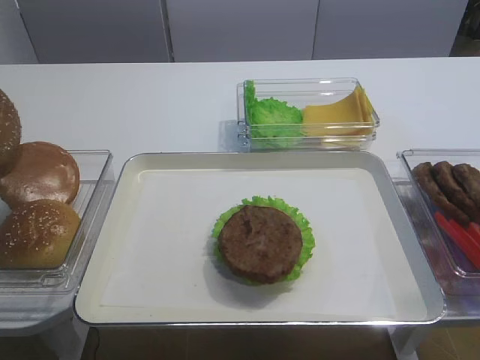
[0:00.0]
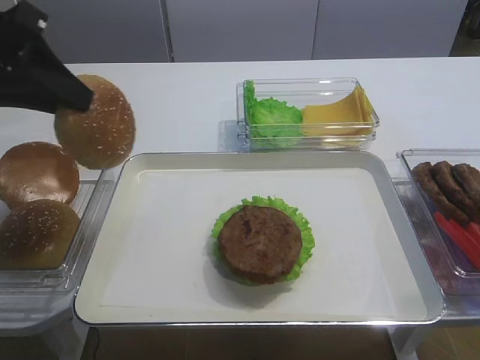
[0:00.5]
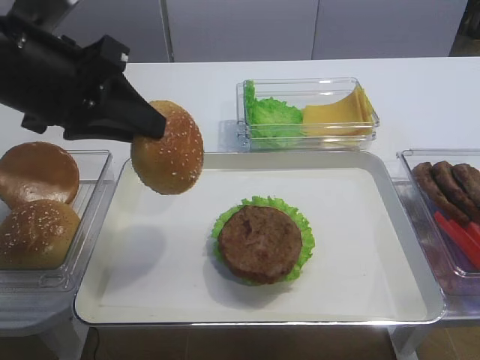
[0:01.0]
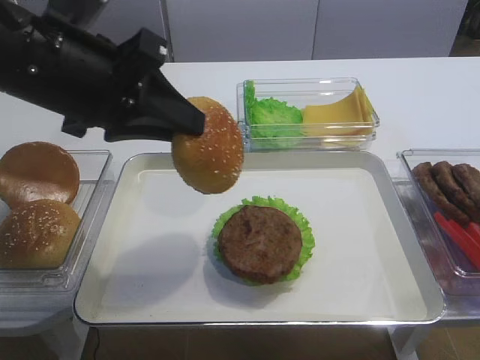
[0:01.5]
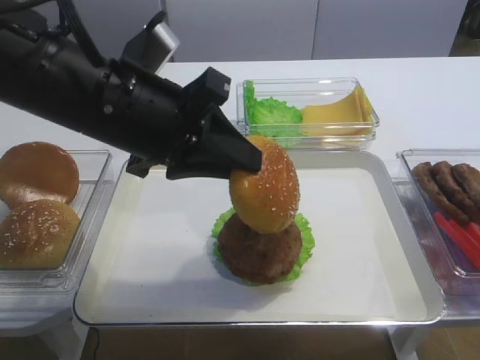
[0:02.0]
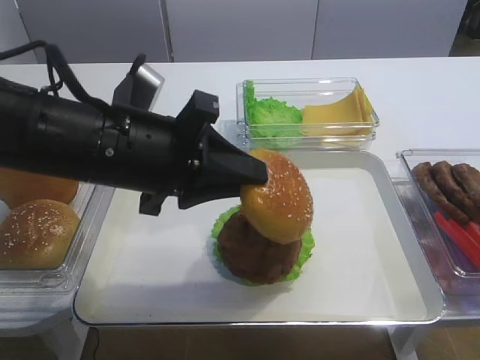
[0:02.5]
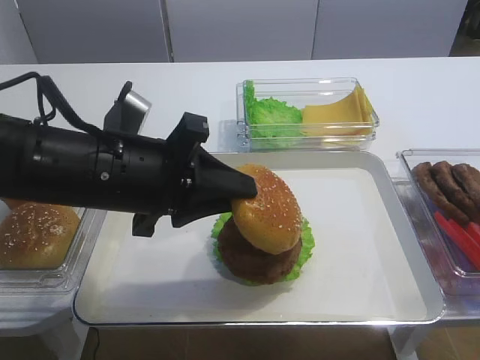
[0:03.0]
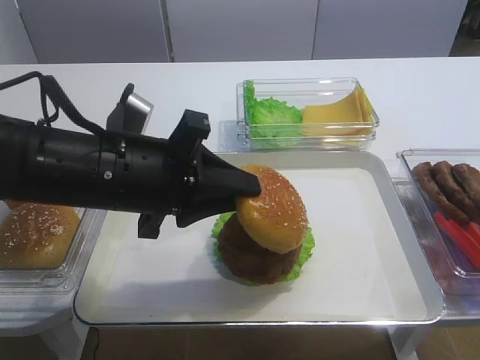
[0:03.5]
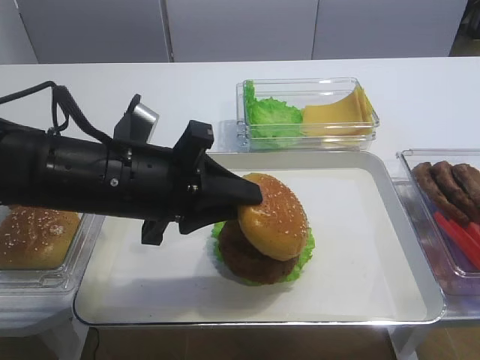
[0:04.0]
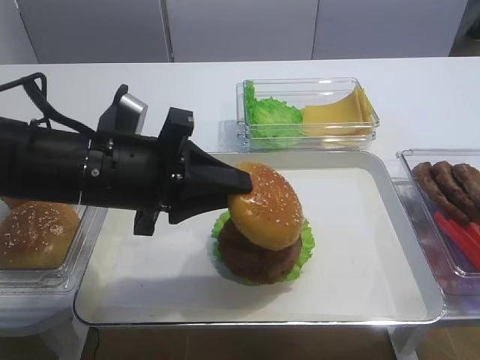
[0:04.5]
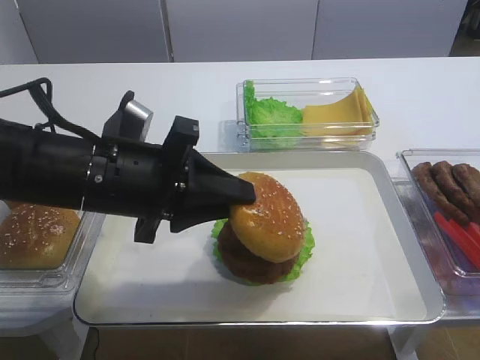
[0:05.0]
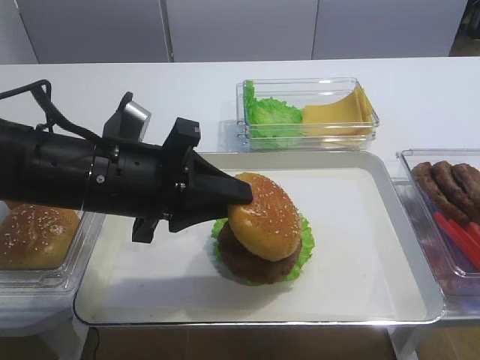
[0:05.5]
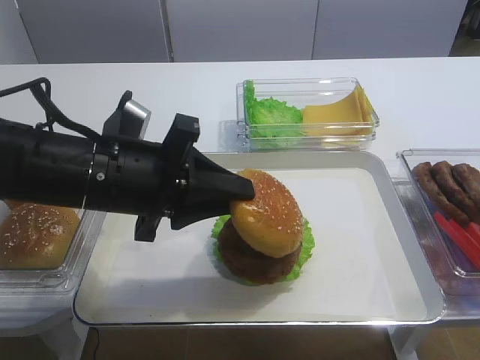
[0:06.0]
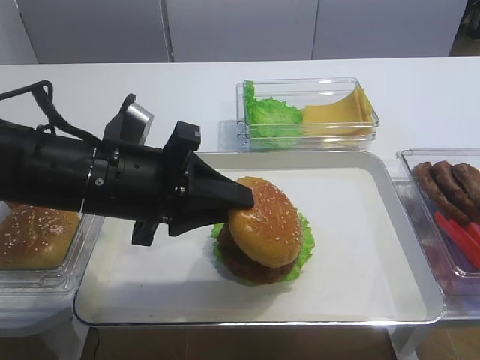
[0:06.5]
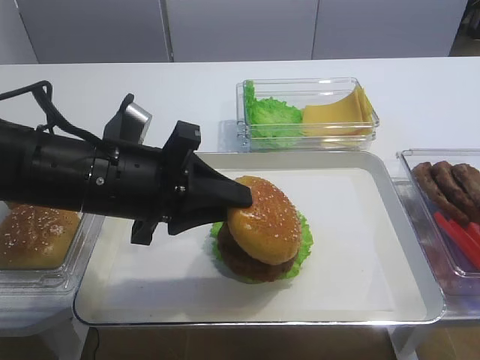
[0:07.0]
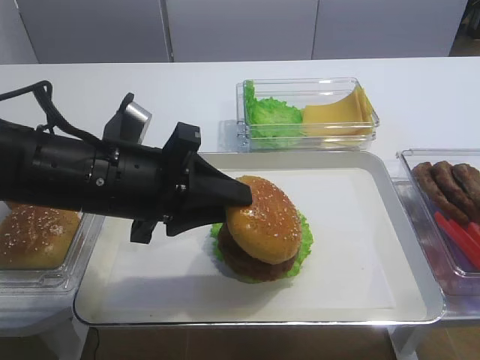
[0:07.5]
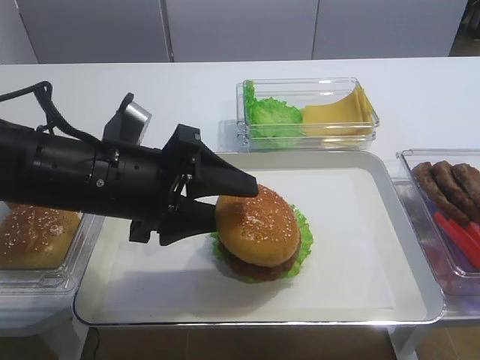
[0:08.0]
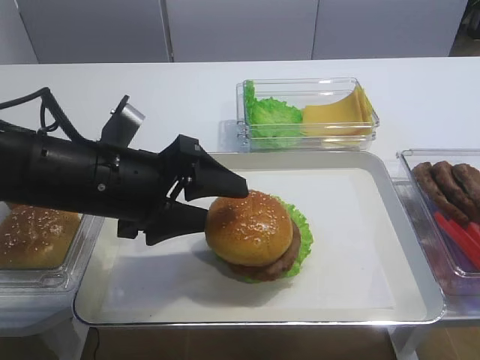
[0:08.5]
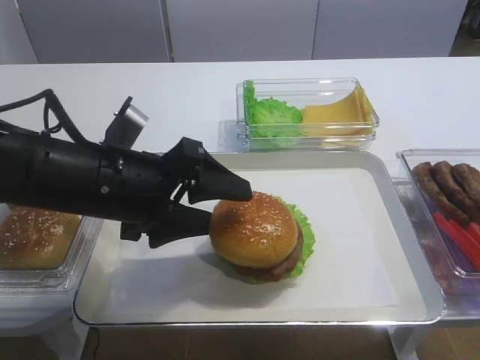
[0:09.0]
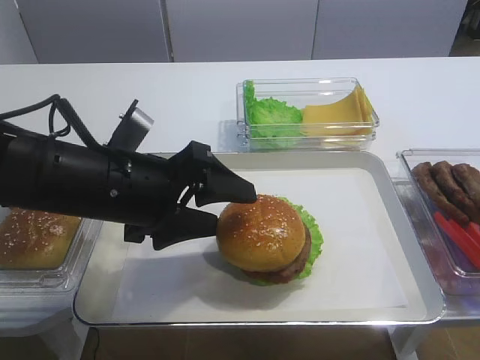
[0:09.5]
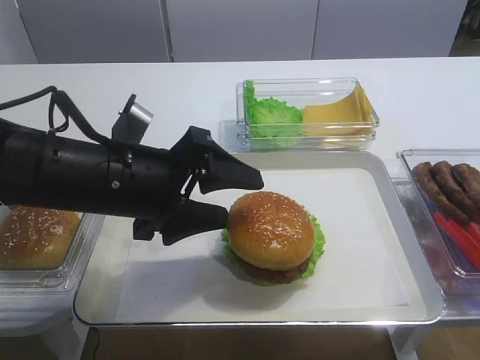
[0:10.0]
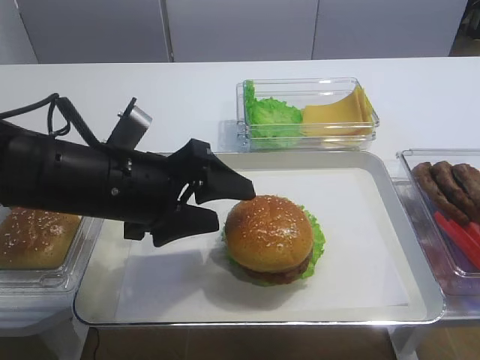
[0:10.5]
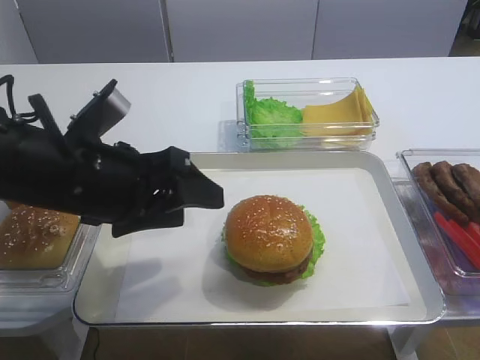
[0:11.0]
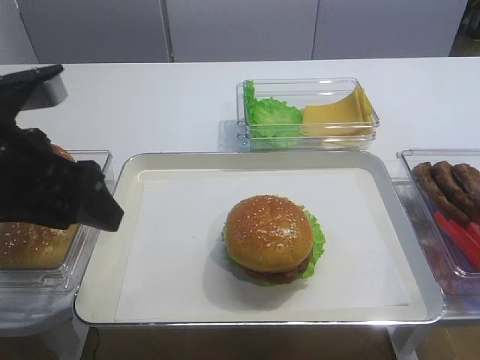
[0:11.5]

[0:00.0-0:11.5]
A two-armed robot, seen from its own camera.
Step, 0:00.5 to 0:11.0: Place the hamburger lid on the cutlet slice with the left gripper.
0:00.0 to 0:02.0: The left gripper moves to the right, about 25 cm.
0:02.0 to 0:04.0: The left gripper goes some 5 cm downward.
0:04.0 to 0:07.5: Both grippers stay put.
0:07.5 to 0:09.5: The left gripper opens up.
0:09.5 to 0:11.5: The left gripper moves to the left and upward, roughly 10 cm.
